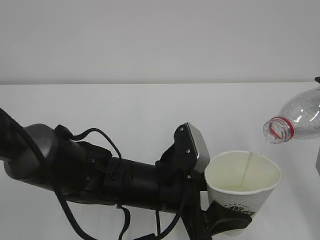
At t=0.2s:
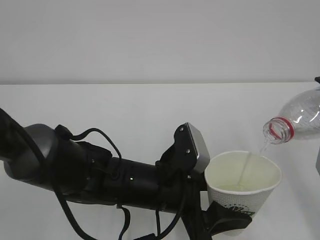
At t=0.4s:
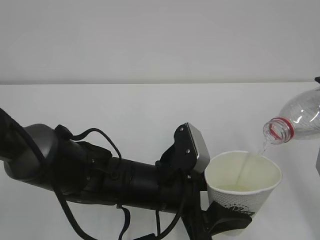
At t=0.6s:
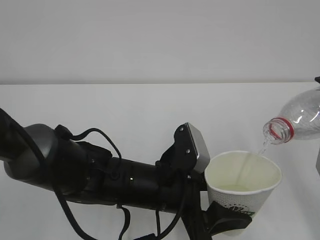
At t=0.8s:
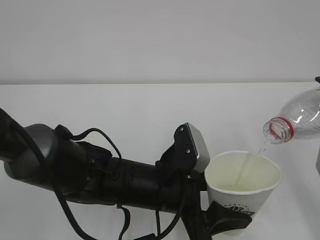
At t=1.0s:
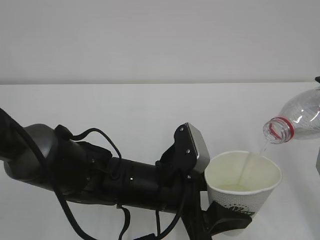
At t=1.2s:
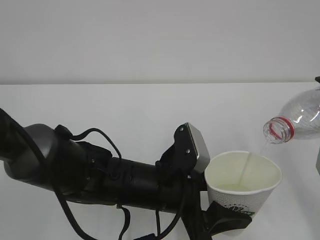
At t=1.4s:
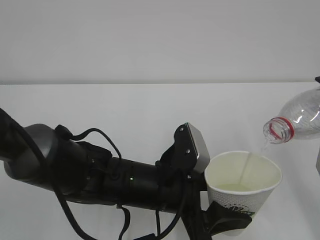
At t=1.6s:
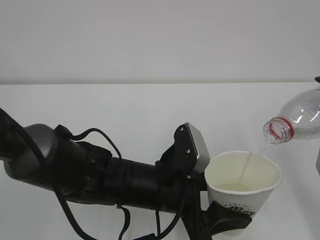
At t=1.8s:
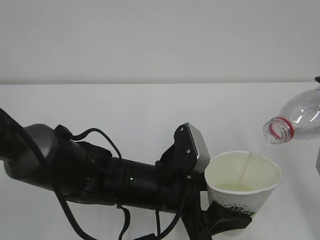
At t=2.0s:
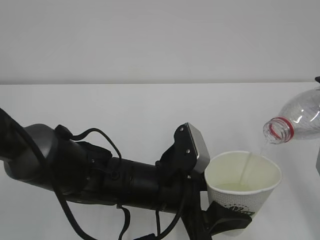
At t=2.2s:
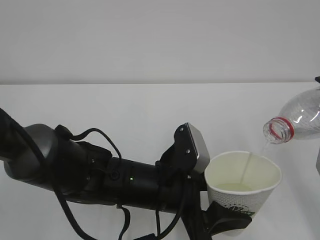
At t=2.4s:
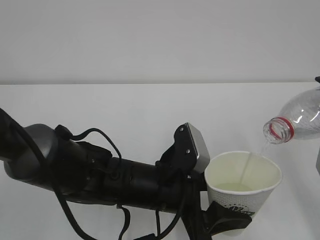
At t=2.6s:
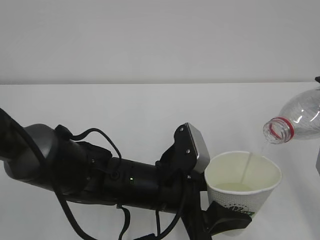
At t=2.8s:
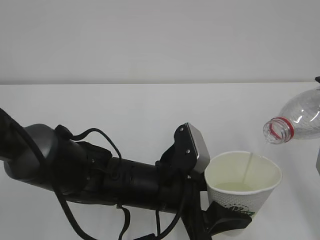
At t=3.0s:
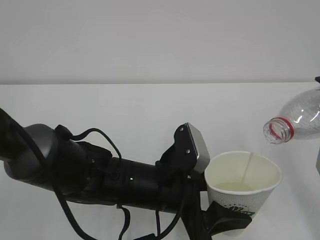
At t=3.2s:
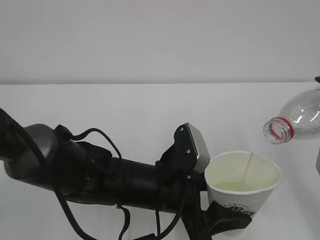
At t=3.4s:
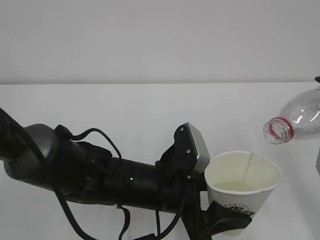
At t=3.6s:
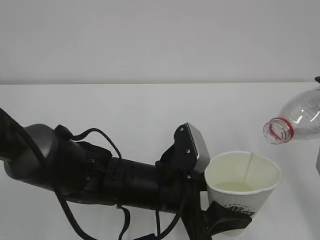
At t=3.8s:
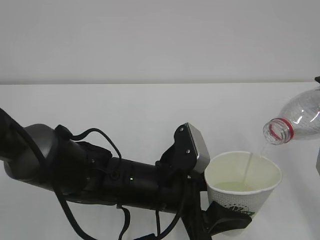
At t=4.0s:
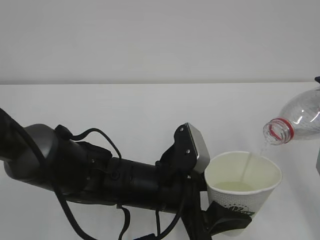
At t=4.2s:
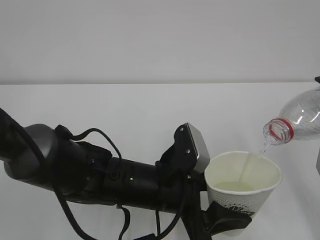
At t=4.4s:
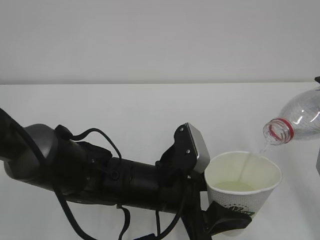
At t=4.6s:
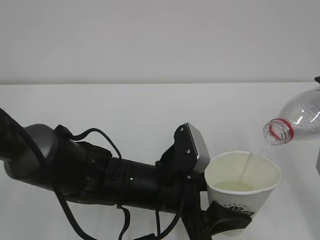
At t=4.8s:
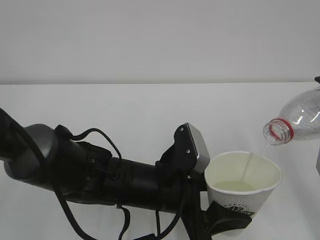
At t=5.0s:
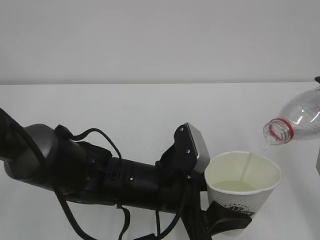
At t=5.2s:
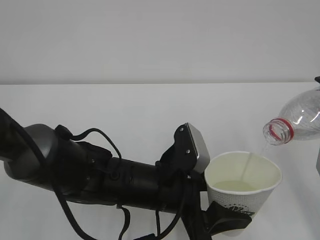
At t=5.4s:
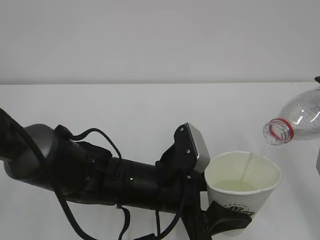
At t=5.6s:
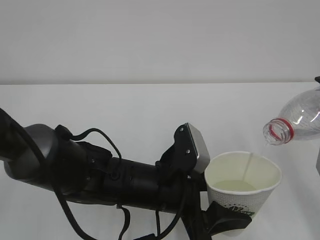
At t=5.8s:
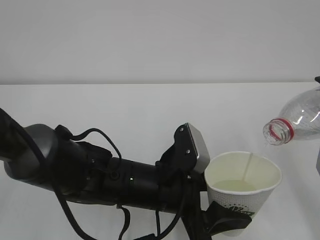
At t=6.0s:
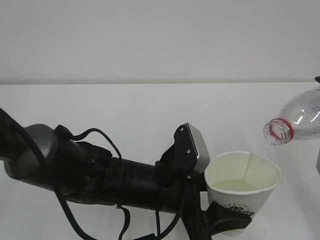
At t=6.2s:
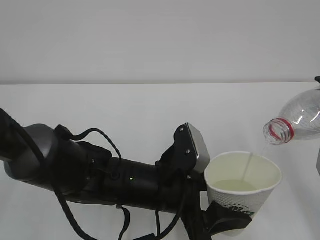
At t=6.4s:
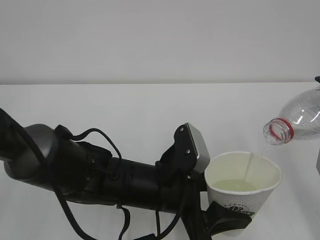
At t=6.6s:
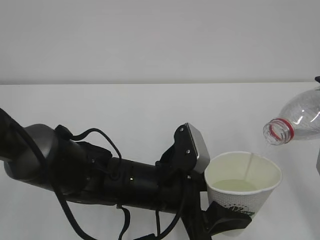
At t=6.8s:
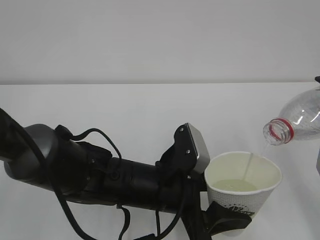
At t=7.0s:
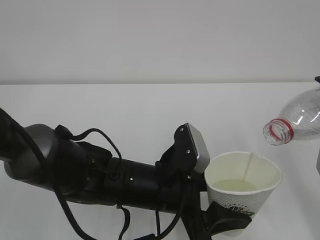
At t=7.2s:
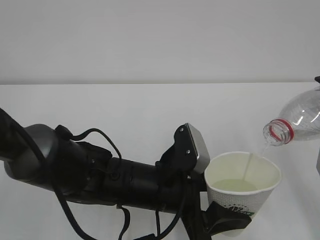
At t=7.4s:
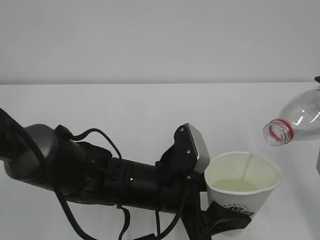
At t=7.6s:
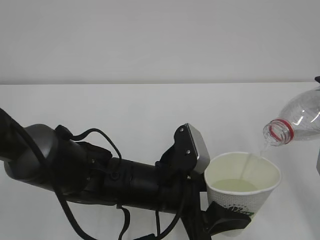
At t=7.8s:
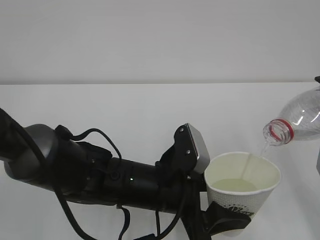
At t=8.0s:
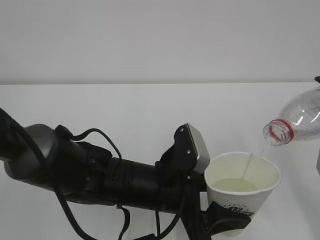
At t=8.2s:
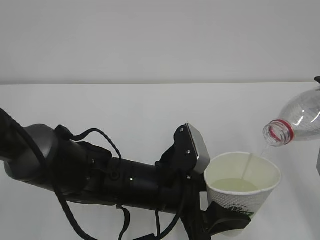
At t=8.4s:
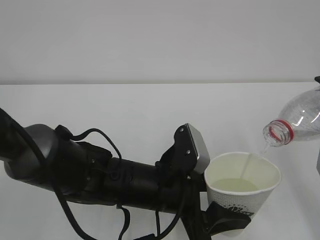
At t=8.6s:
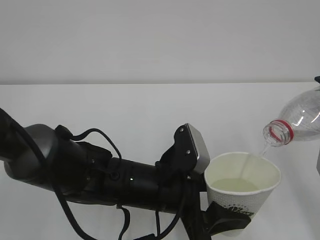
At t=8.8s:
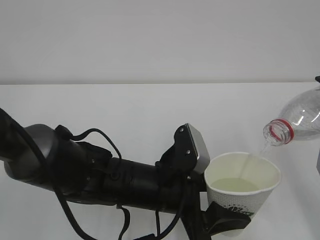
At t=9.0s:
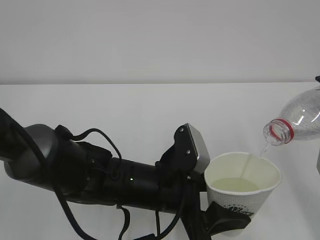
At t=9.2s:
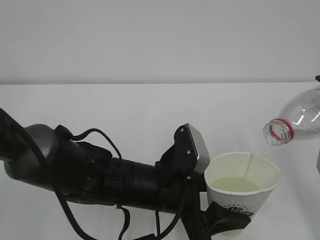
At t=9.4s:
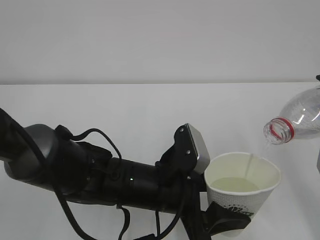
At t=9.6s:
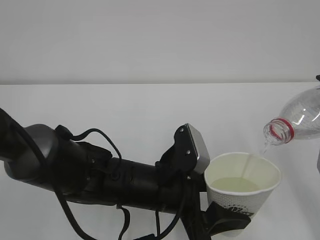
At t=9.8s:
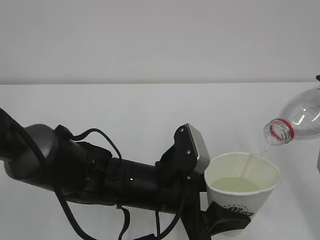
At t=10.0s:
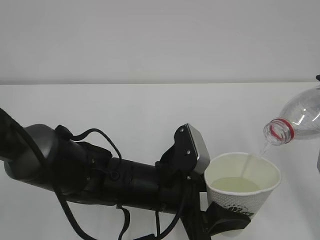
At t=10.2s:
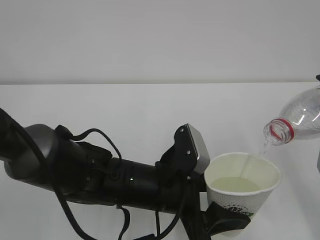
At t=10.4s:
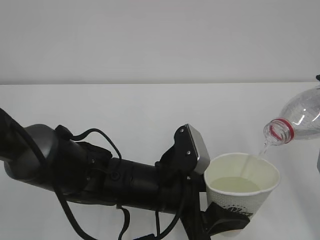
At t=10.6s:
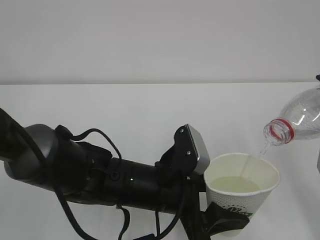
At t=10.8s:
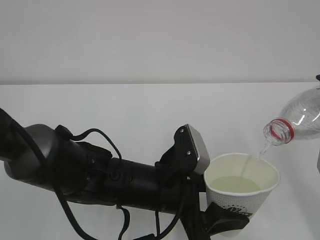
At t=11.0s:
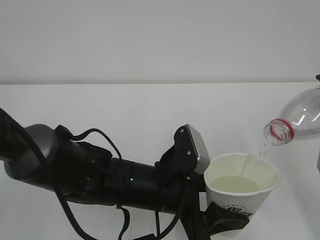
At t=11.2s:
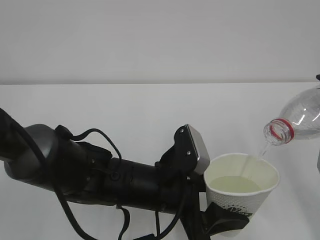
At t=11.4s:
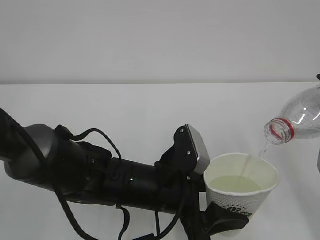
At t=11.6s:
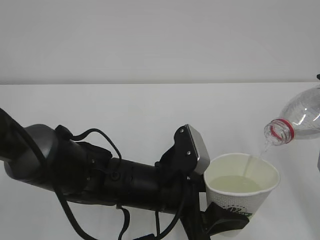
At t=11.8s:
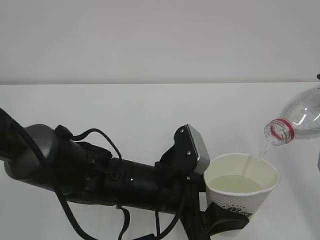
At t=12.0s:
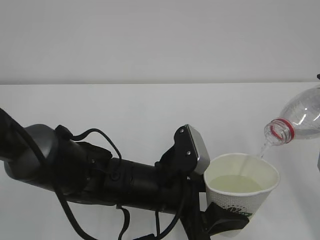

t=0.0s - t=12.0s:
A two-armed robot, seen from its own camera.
t=0.0s - t=12.0s: Both grippers stay put.

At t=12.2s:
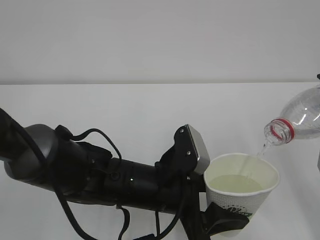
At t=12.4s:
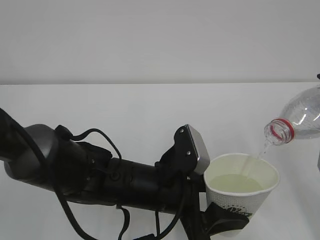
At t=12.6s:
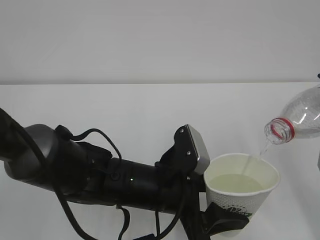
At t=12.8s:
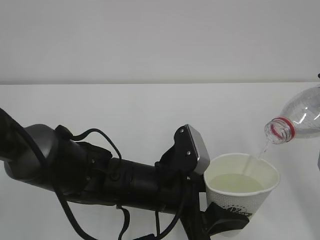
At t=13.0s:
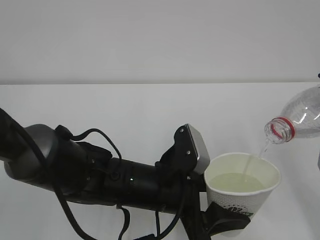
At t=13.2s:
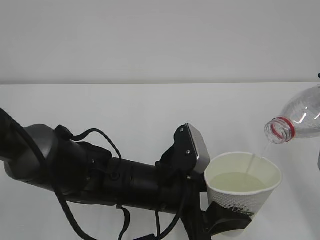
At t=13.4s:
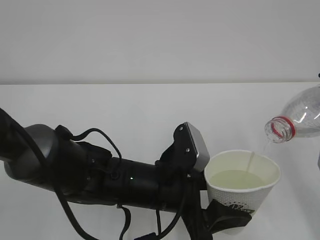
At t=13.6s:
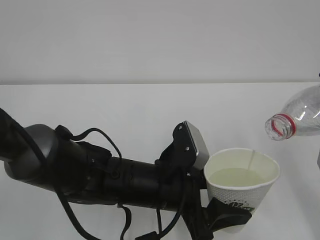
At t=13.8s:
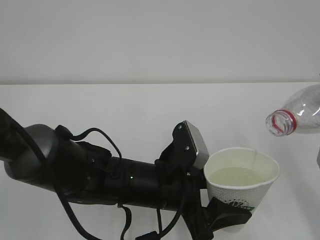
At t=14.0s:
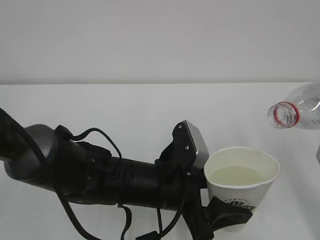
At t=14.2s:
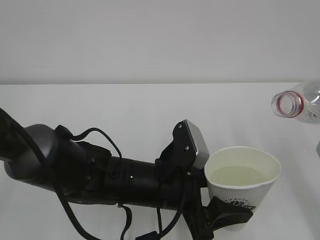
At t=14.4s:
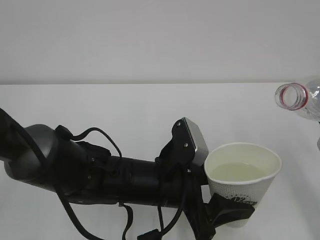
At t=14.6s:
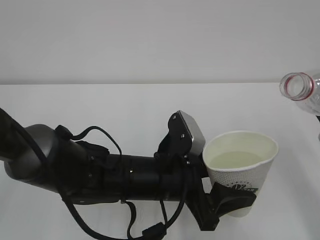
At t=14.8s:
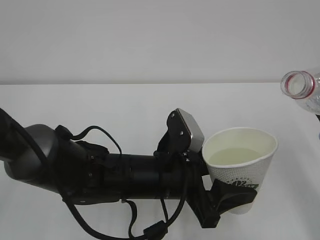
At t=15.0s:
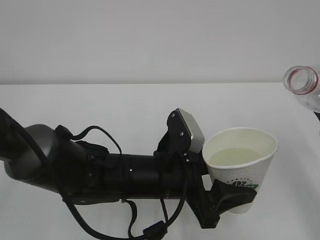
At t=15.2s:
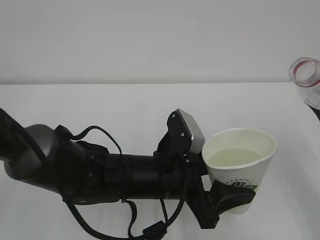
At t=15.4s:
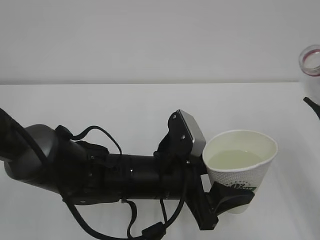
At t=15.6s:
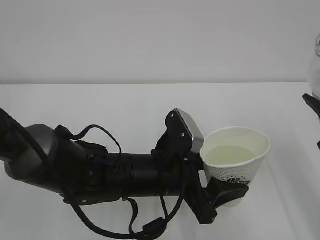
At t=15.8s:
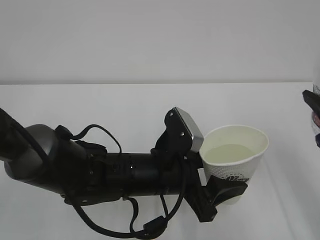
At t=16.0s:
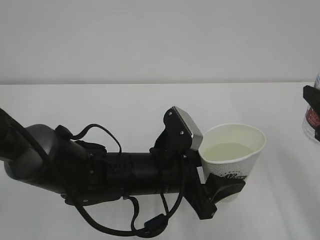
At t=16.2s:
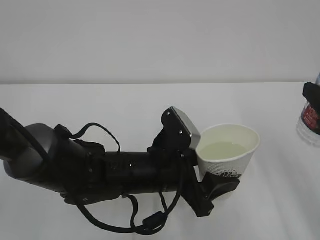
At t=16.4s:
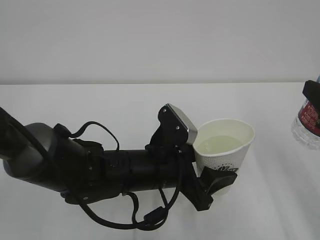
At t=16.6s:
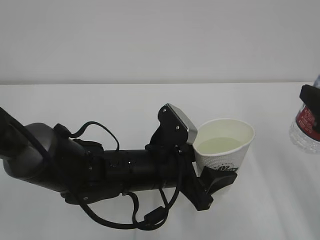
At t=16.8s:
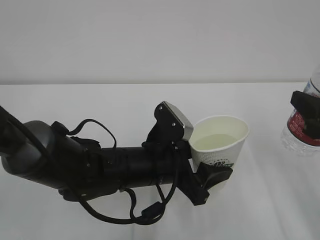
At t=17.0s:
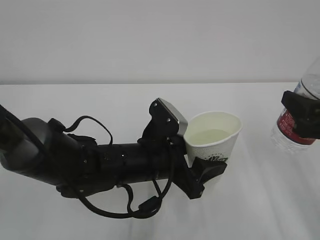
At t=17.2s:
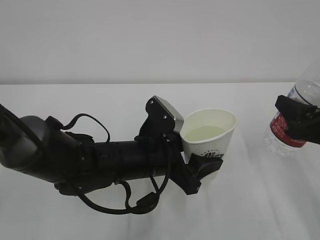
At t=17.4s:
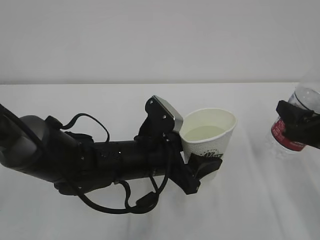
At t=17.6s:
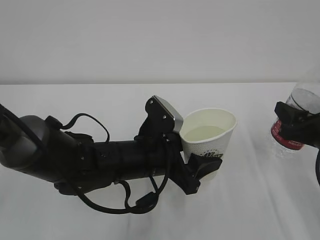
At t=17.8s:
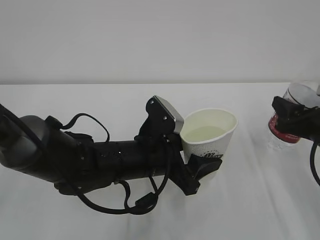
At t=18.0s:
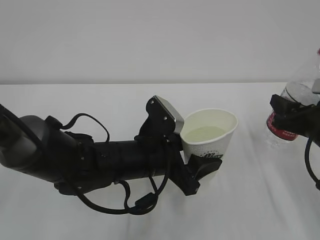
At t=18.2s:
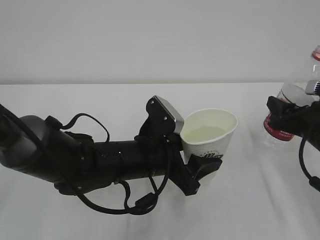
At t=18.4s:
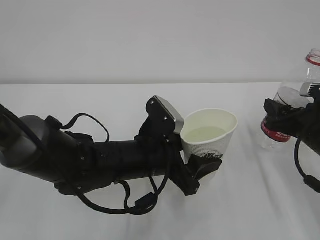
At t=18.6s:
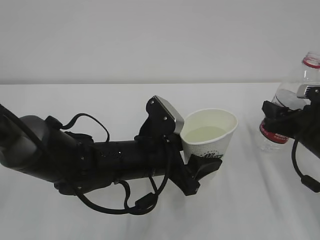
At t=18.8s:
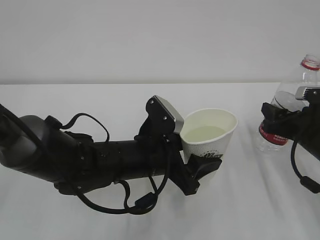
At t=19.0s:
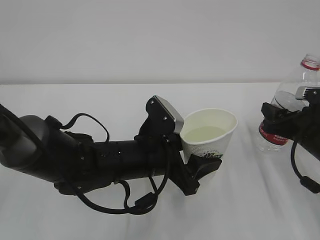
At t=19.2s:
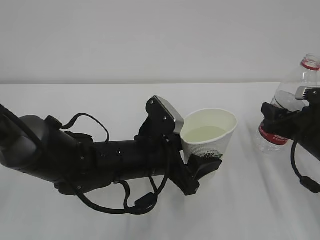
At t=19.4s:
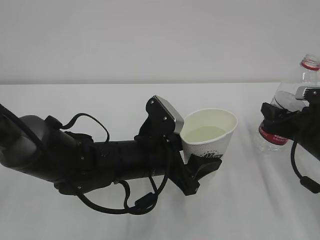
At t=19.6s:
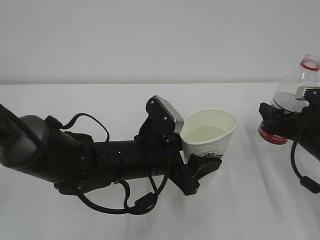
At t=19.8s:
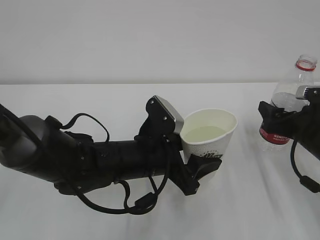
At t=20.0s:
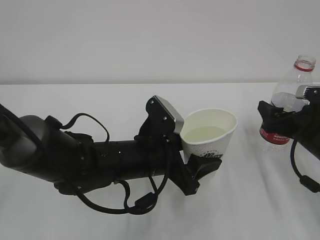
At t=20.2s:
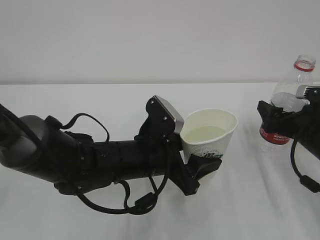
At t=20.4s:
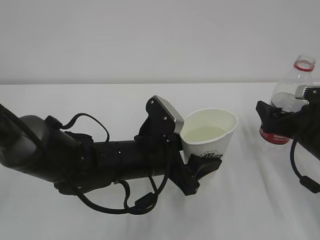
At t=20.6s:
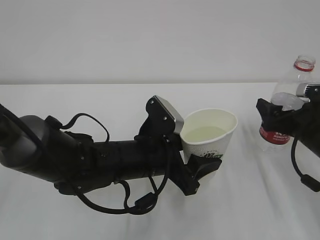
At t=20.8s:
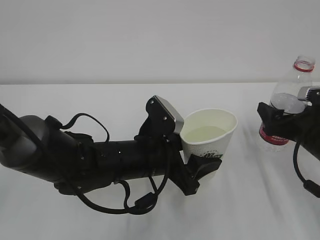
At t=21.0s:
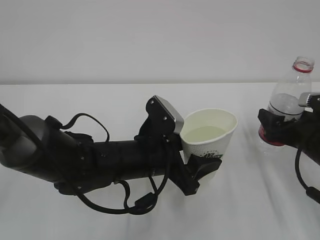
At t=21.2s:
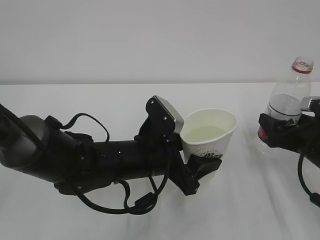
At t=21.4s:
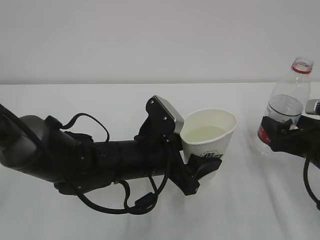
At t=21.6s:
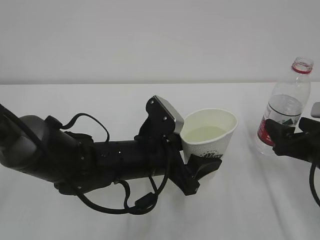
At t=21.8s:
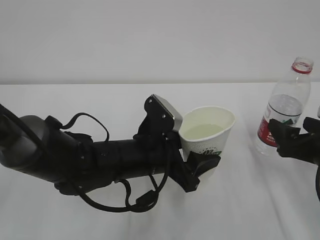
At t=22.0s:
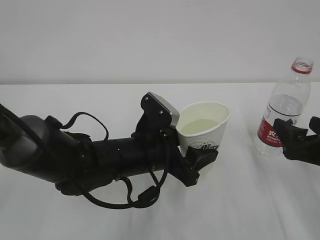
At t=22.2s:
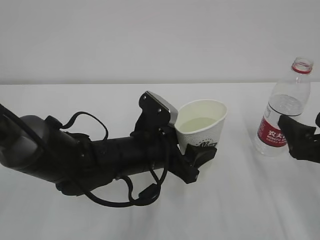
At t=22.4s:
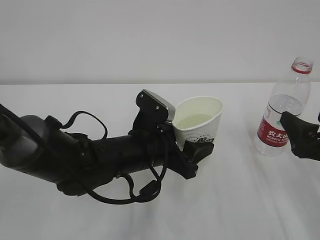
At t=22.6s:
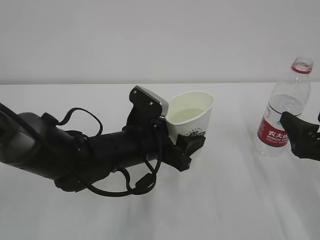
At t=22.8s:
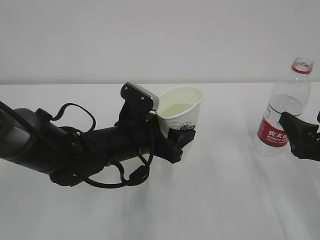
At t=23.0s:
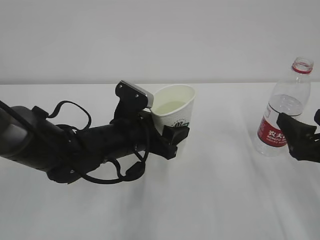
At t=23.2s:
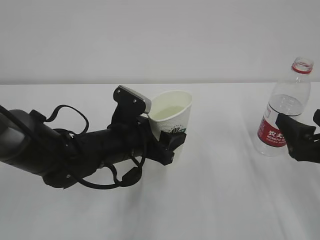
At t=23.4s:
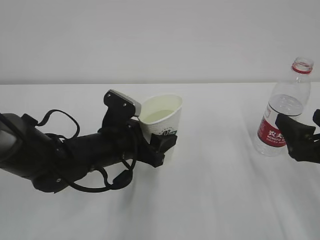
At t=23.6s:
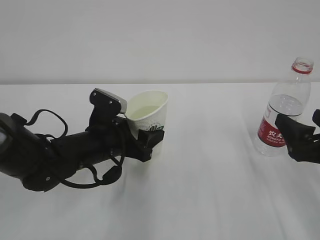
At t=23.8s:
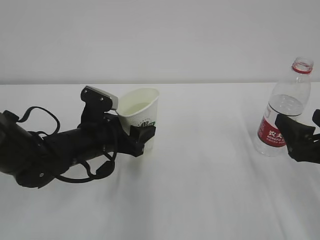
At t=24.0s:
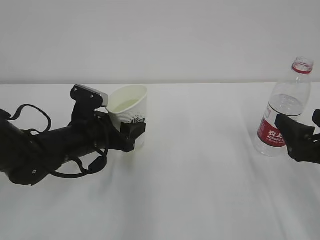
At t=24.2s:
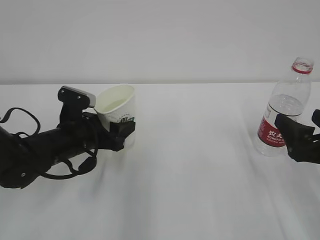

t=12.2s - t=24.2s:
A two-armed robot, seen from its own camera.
t=12.2s - t=13.8s: There are only small adjustments of the grippers.
t=16.6s - t=18.2s: The right gripper heads downward and forward, covering roughly 15 cm.
t=18.2s - t=19.8s: The right gripper opens.
t=19.8s - t=21.2s: The grippers move only a little.
t=21.2s - t=22.6s: The right gripper goes some 5 cm backward.
t=22.6s - t=24.2s: The left gripper moves to the left, approximately 10 cm.
